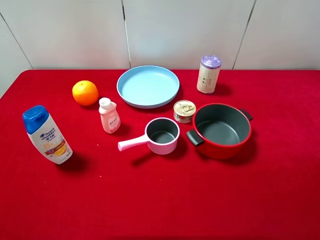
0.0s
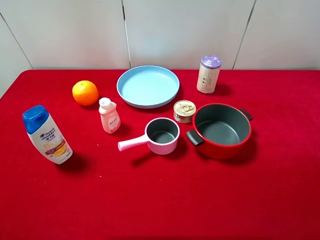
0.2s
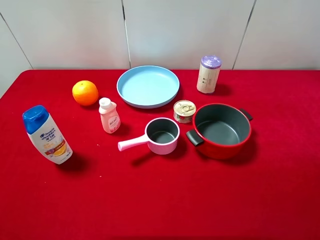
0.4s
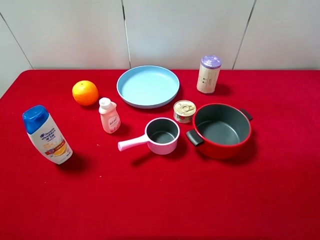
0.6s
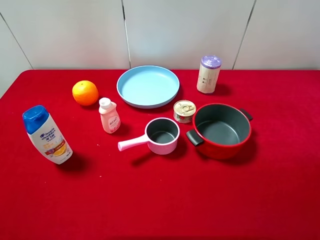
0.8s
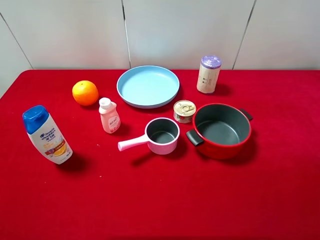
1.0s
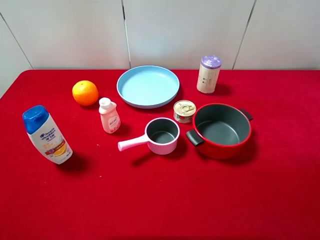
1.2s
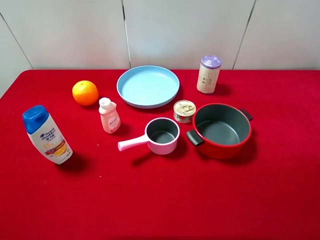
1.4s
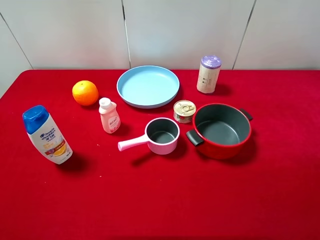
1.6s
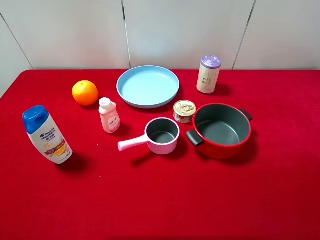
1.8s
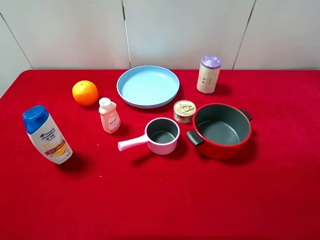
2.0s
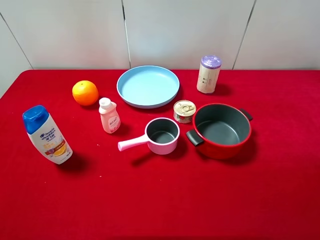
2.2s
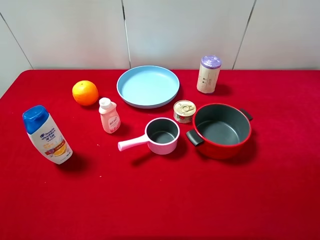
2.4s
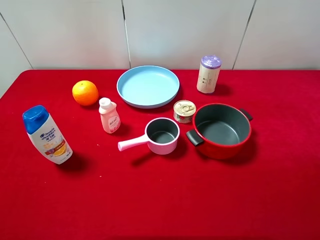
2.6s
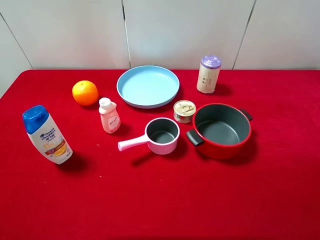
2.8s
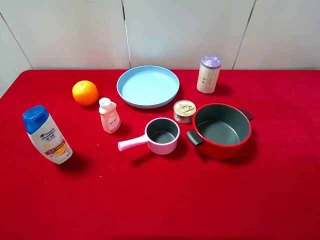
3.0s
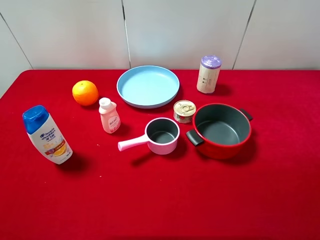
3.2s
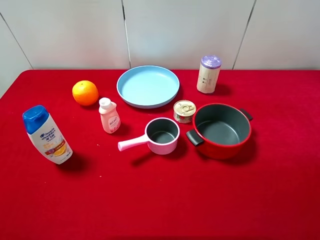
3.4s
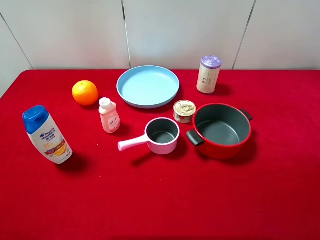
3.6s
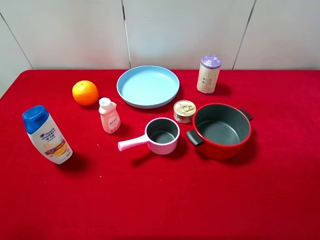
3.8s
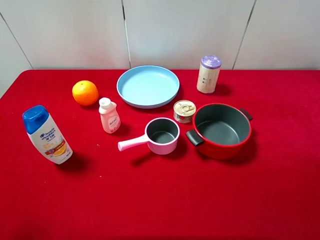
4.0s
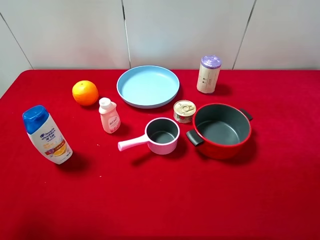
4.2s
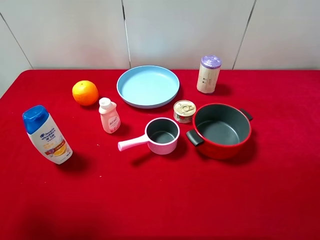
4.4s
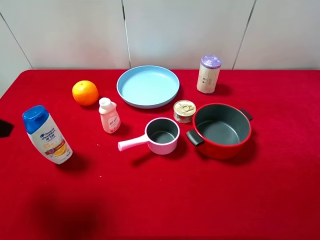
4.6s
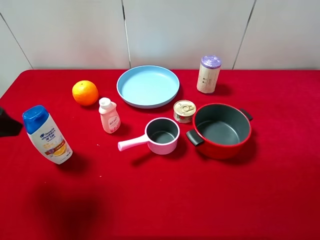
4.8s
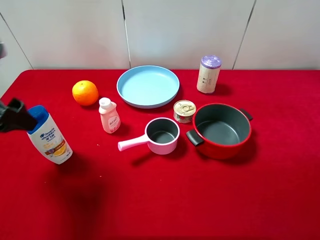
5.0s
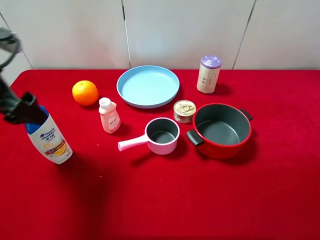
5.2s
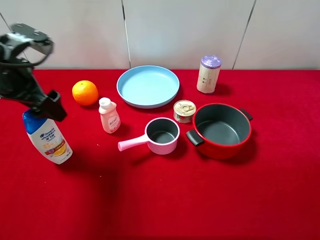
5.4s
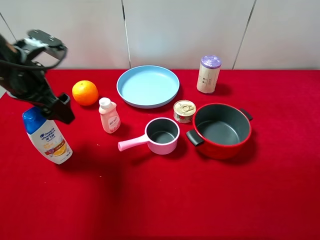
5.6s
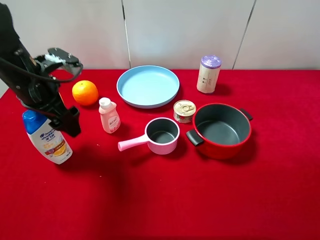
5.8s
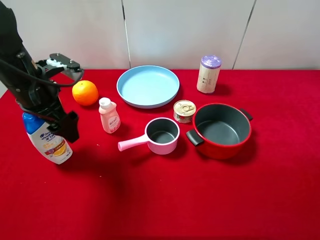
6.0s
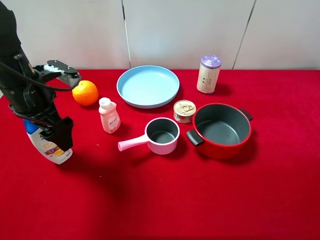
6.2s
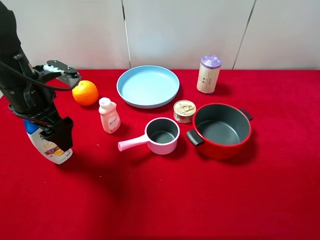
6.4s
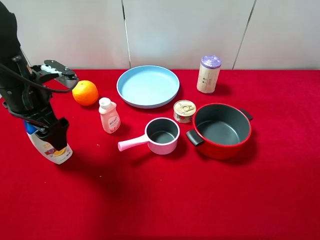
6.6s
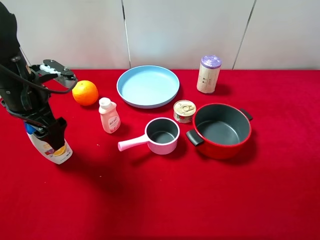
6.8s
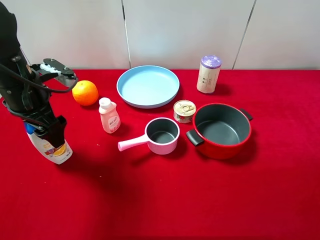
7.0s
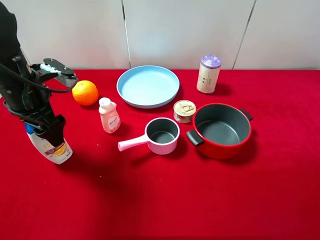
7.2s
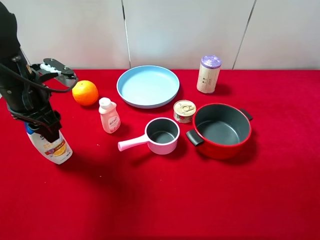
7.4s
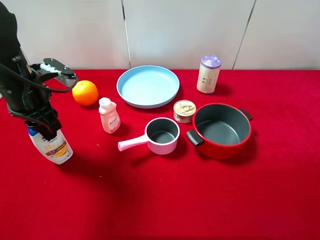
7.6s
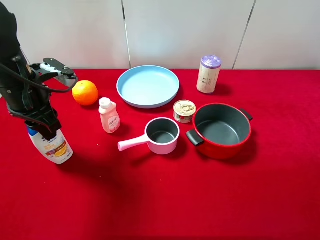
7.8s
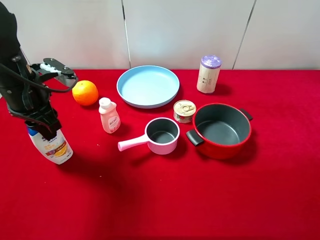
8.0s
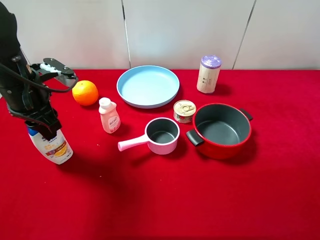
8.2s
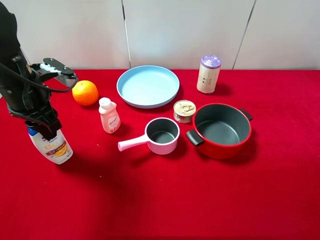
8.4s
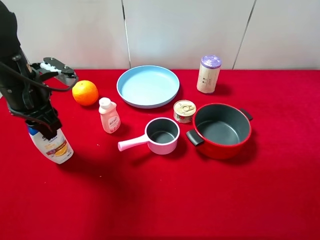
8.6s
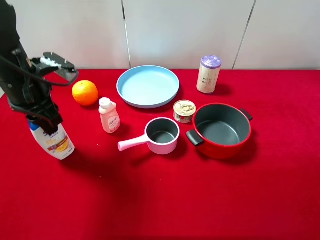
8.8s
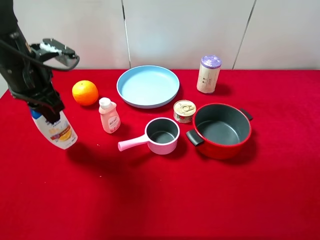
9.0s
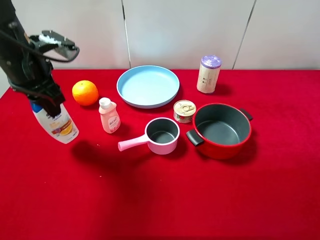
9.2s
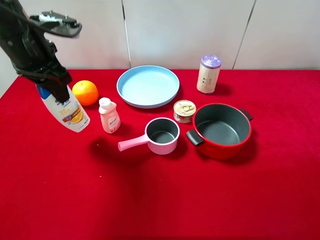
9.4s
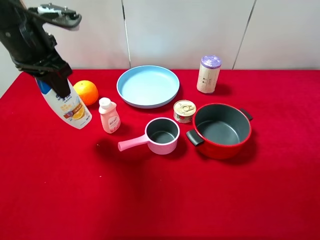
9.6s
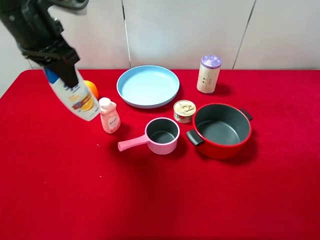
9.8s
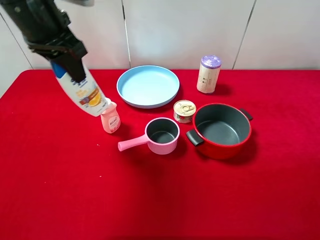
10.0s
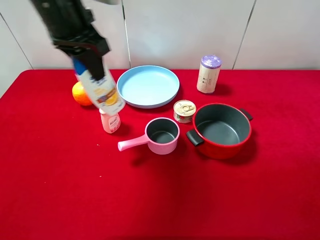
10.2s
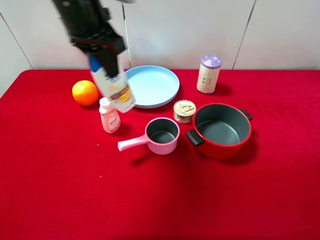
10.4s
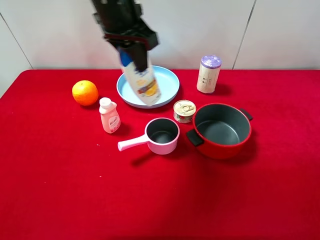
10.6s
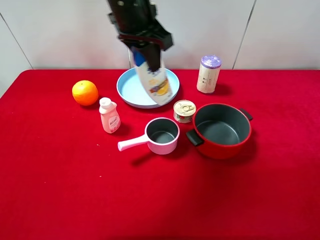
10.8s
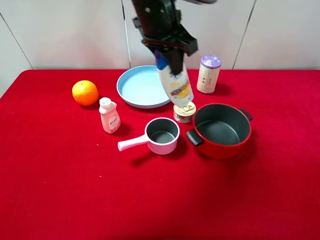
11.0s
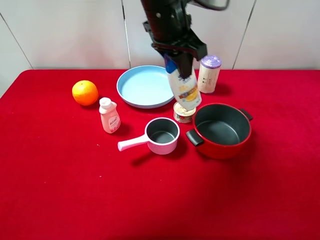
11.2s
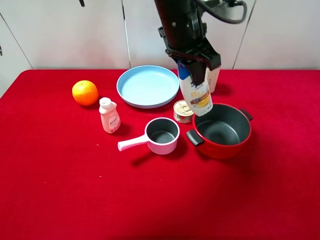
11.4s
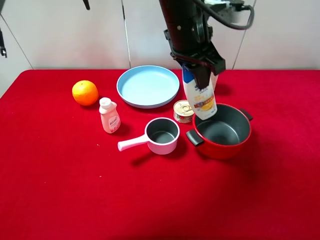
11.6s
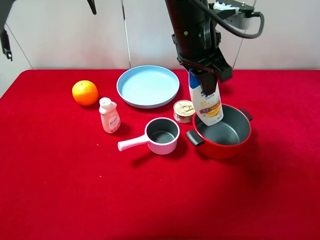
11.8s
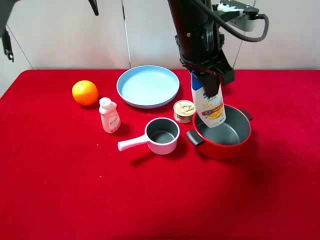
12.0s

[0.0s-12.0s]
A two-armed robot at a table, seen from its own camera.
Task of the whole recording: pick up an item with a gripper and place it in a random container on the desktop.
0.0s to 3.0s: Neither gripper changes place.
4.4s to 6.0s: The left gripper shifts some 20 cm forward, downward and to the right.
6.0s to 7.6s: The left gripper closes.
7.6s to 9.0s: The grippers move only a little.
9.0s to 10.4s: The left gripper goes roughly 15 cm to the right and upward.
10.4s to 12.0s: The left gripper travels to the right by some 15 cm.

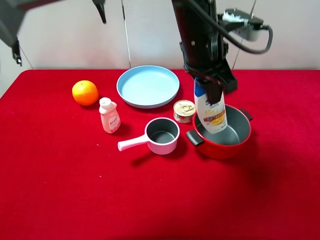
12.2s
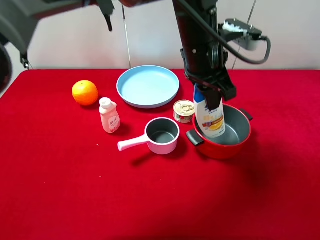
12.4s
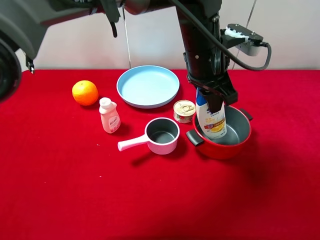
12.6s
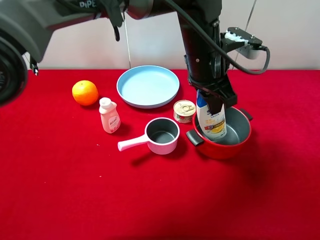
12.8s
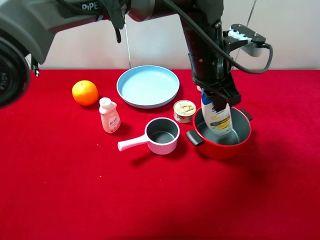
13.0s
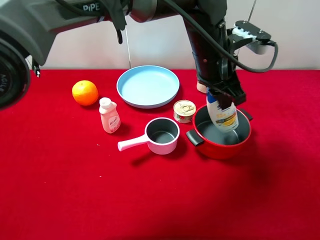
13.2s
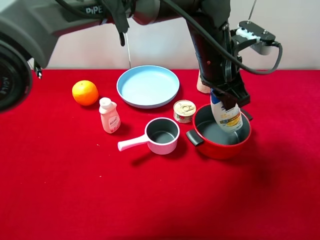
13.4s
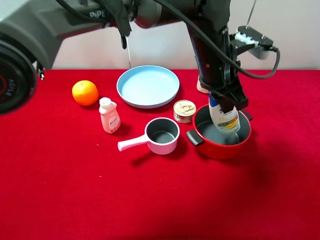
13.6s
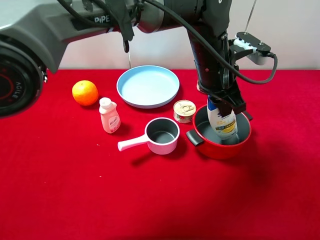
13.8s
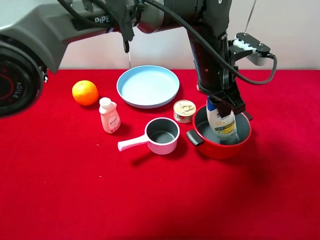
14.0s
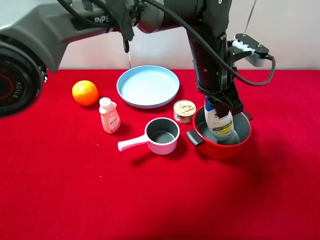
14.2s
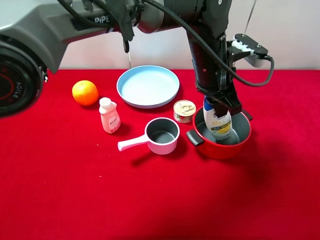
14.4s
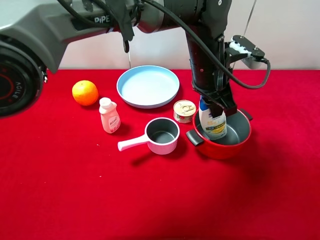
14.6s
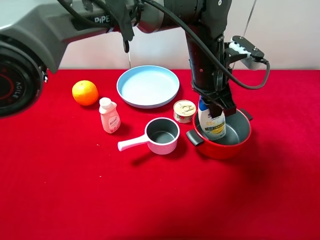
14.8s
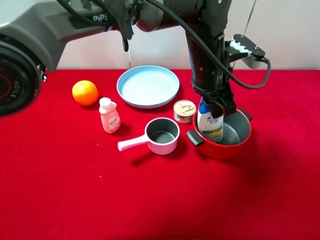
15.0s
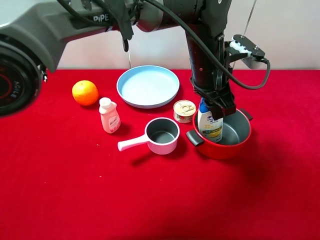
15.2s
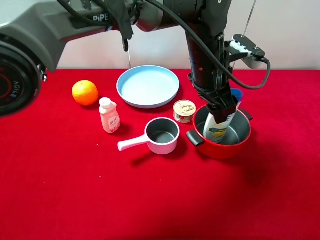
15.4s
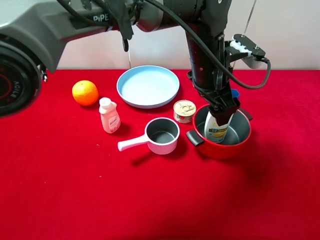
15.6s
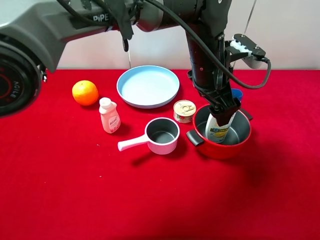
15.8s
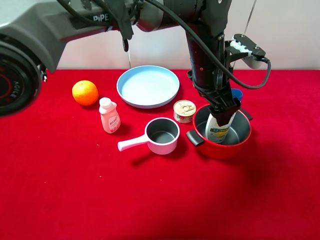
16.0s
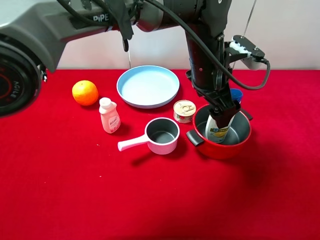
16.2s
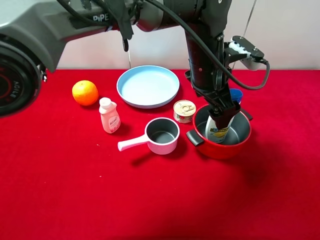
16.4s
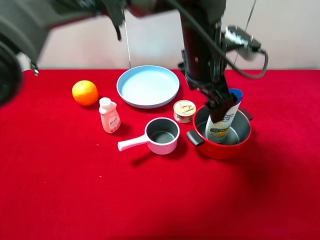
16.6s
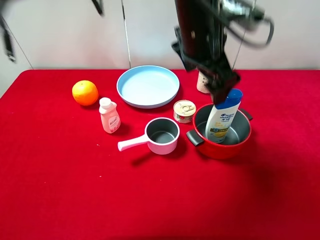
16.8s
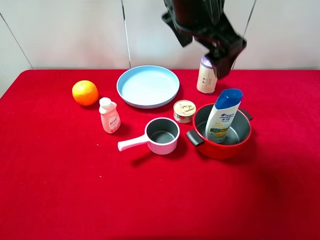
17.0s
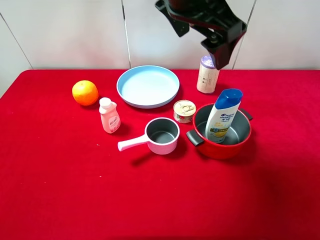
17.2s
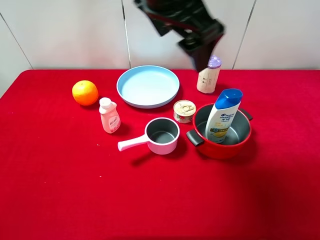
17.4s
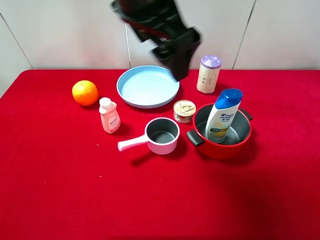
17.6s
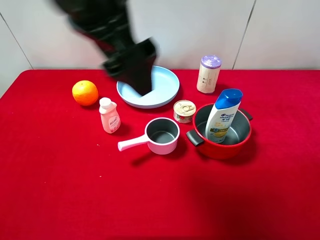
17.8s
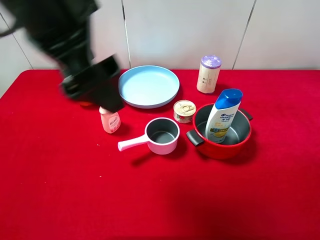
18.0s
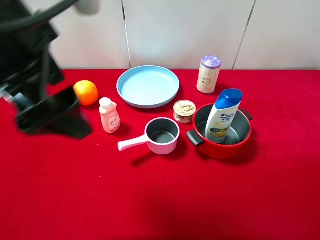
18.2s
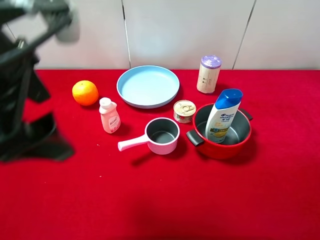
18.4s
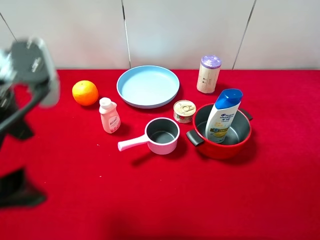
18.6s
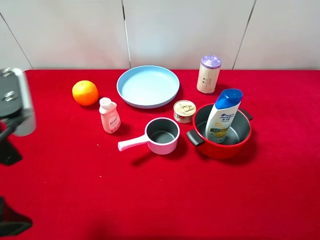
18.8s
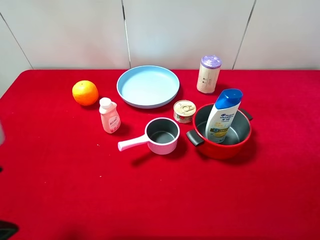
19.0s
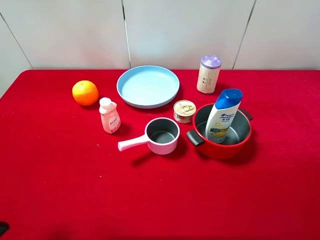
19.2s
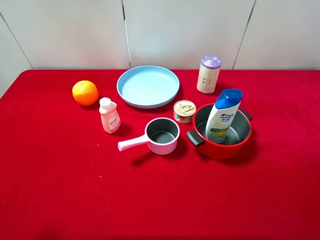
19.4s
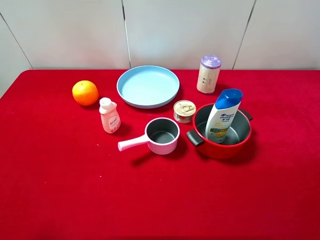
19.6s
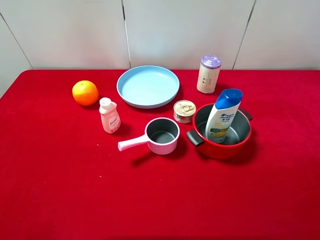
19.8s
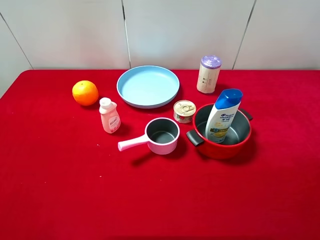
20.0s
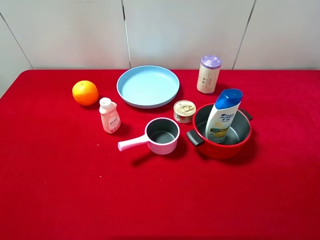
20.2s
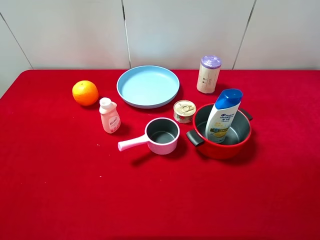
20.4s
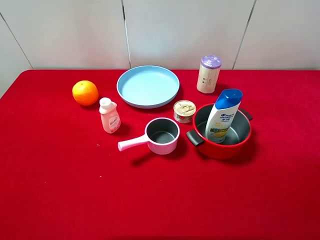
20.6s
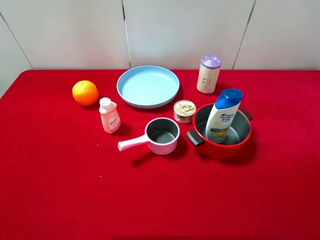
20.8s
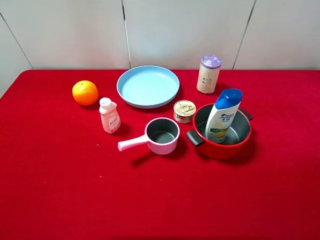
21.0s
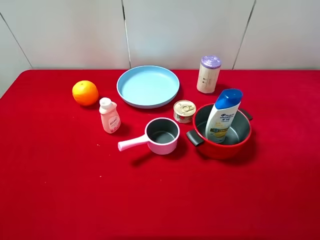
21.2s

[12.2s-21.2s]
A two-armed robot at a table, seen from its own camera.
Task of the whole recording: pick up an item with a gripper and place it in a random container on the desktop.
12.2s to 13.8s: The left gripper moves roughly 5 cm.
13.8s to 15.2s: The grippers make only small movements.
15.2s to 16.6s: The left gripper opens.
16.6s to 18.2s: The left gripper goes approximately 30 cm to the left, backward and upward.
18.2s to 19.8s: The left gripper moves to the left, backward and downward, some 20 cm.
